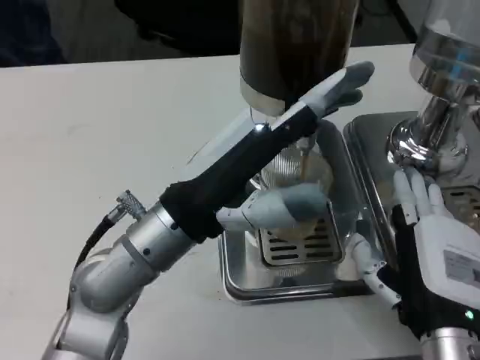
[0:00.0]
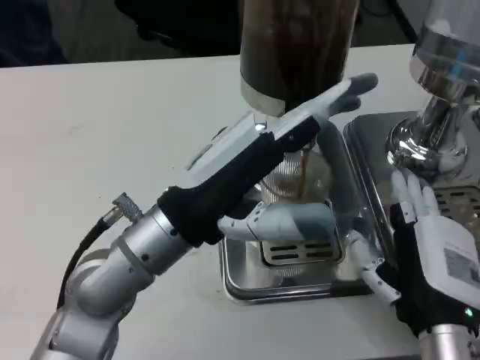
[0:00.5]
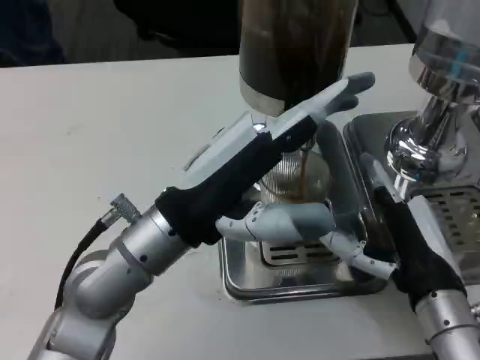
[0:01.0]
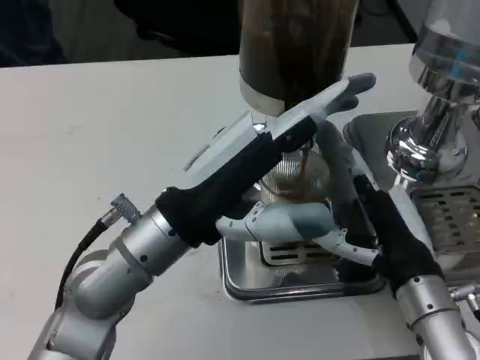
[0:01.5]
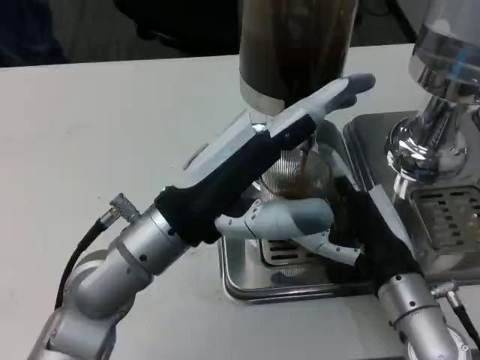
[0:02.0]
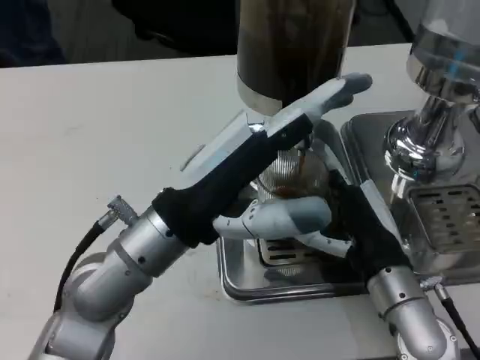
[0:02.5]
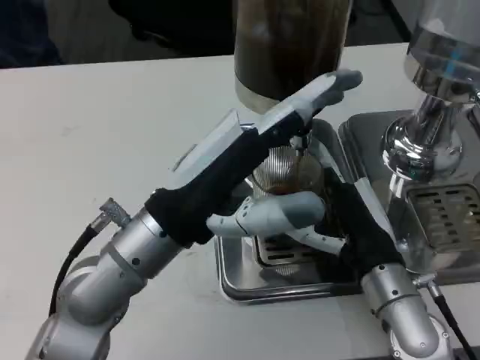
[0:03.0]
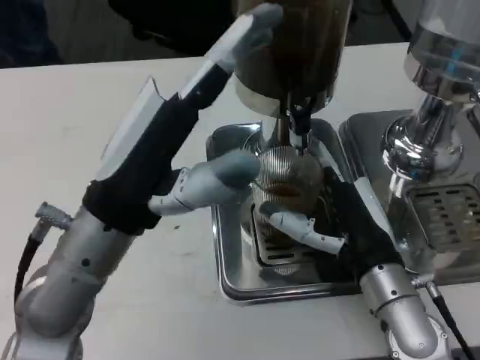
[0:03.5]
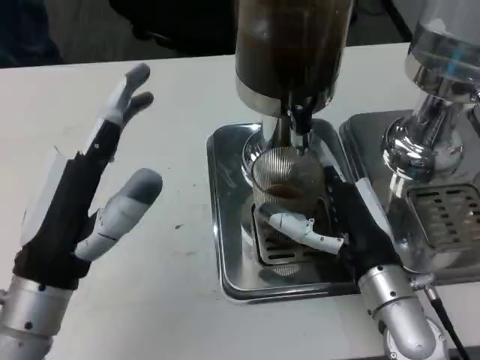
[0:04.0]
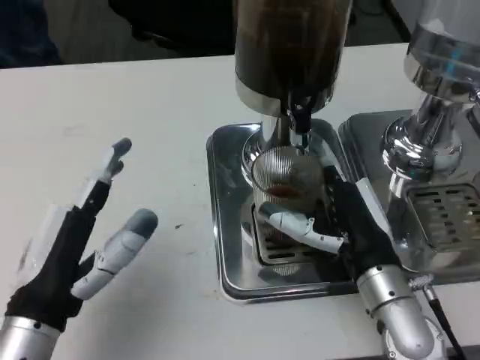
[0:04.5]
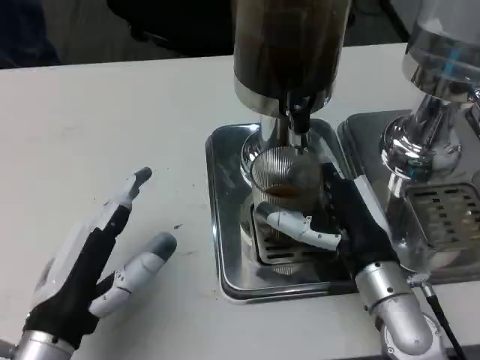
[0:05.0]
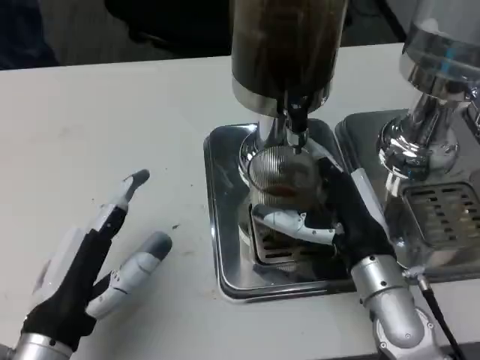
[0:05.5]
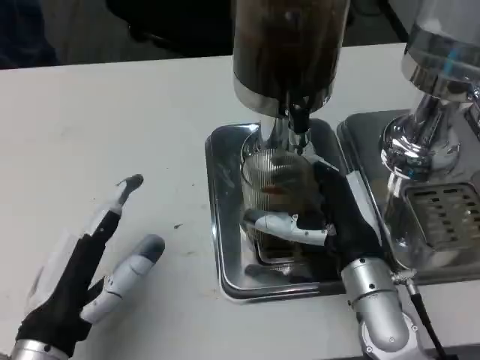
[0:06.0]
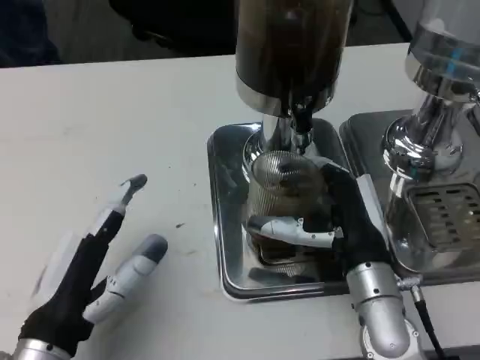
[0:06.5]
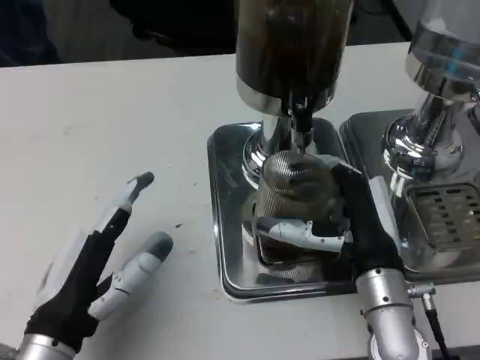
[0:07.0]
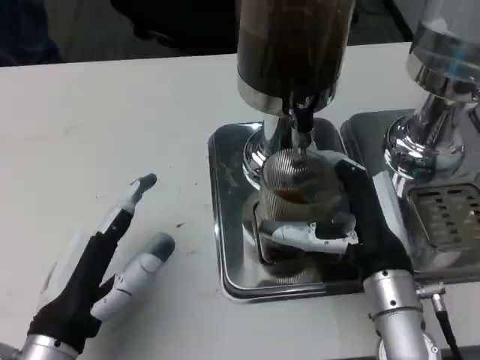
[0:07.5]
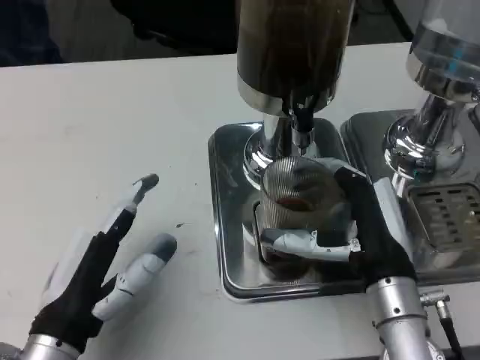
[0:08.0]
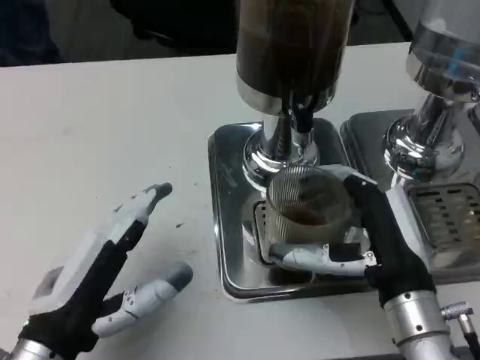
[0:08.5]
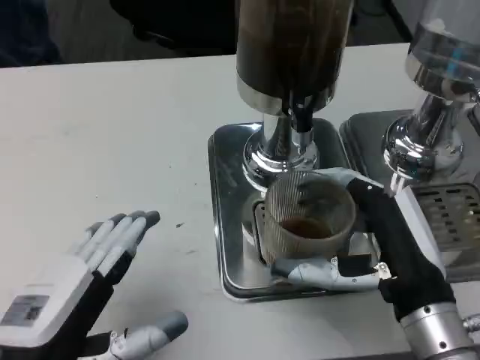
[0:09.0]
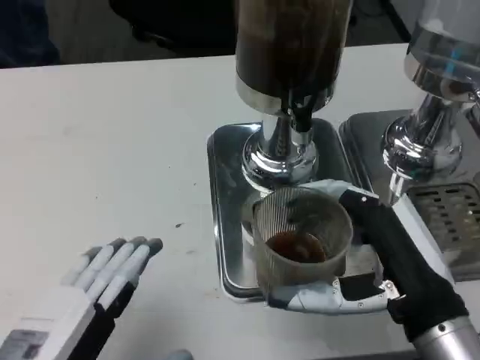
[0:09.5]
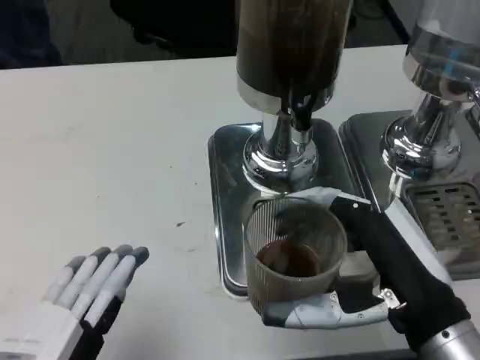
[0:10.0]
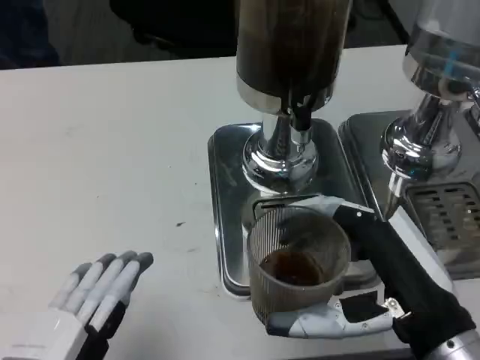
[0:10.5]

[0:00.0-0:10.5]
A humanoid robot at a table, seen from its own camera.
Task of the whole recording: Grasp the cup under the faucet to collect the drink, then remove the cup.
0:00.0 to 0:02.0: The right hand moves forward, about 5 cm.
0:02.0 to 0:04.0: The left hand moves to the left and backward, some 10 cm.
0:04.0 to 0:06.5: The left hand moves downward, roughly 5 cm.
0:06.5 to 0:08.5: The right hand ends up approximately 5 cm from where it was.
0:08.5 to 0:10.5: The right hand goes approximately 5 cm backward. Meanwhile the left hand shifts roughly 10 cm backward.

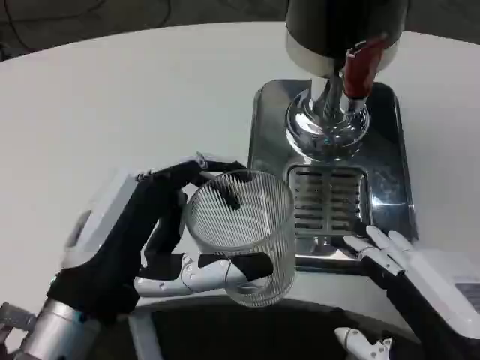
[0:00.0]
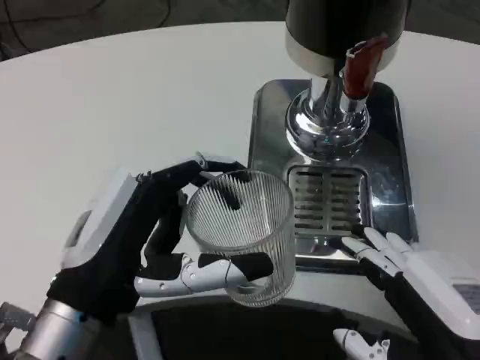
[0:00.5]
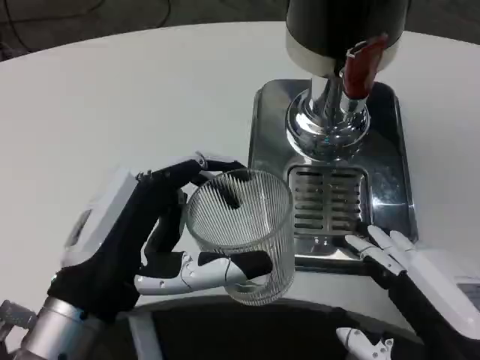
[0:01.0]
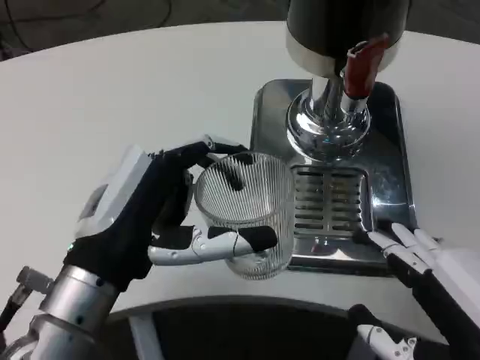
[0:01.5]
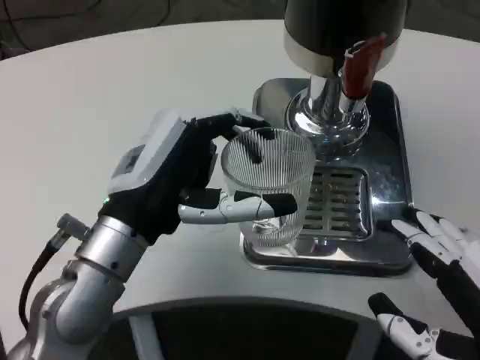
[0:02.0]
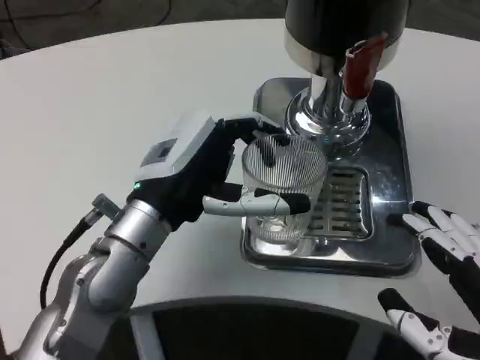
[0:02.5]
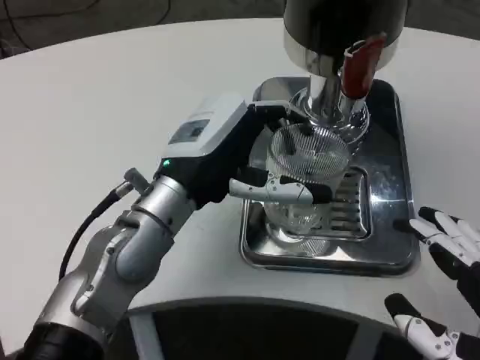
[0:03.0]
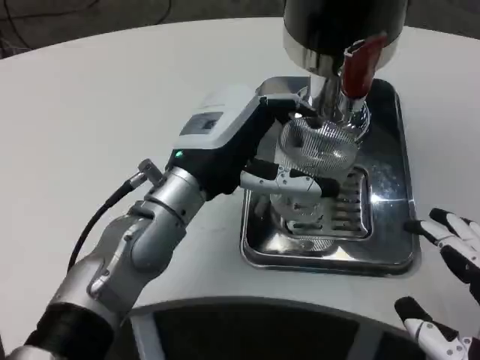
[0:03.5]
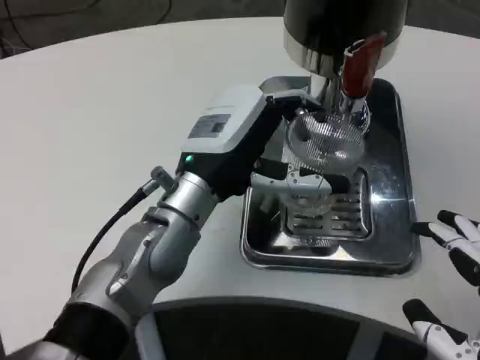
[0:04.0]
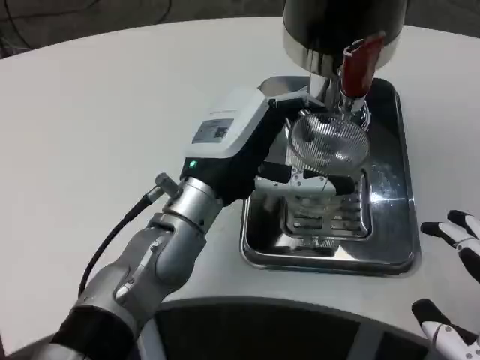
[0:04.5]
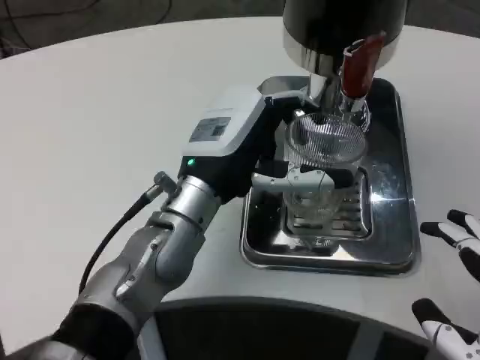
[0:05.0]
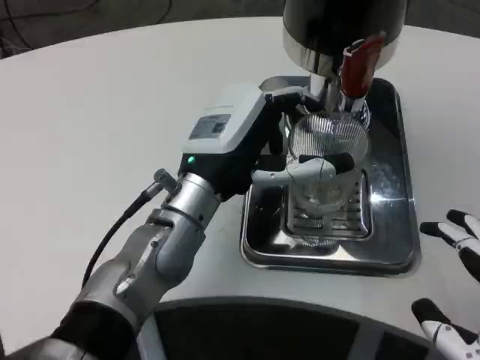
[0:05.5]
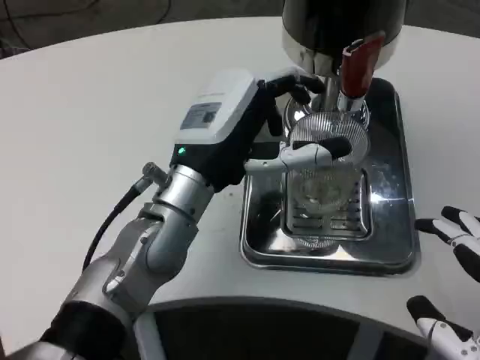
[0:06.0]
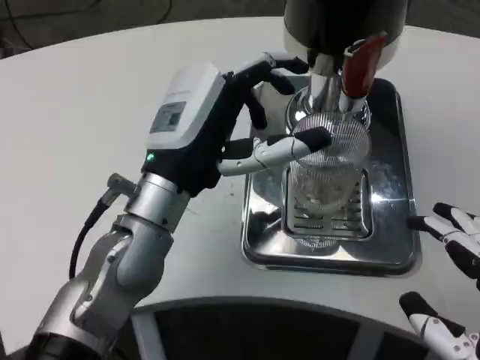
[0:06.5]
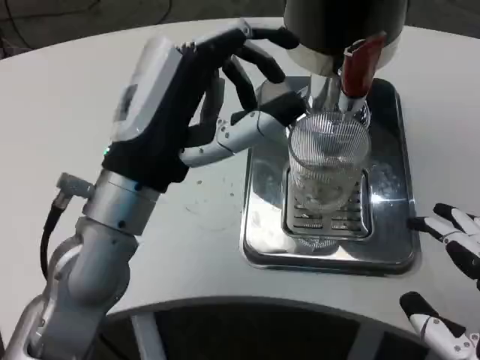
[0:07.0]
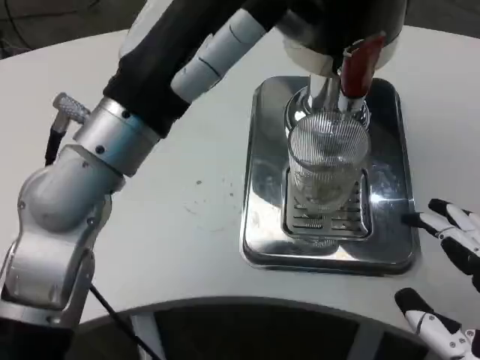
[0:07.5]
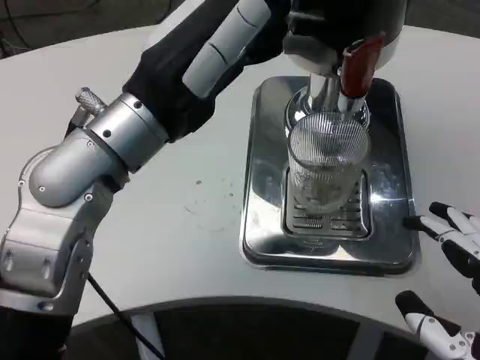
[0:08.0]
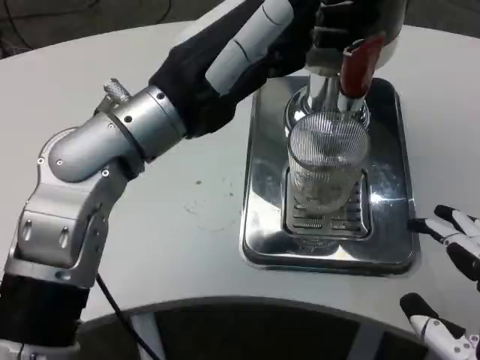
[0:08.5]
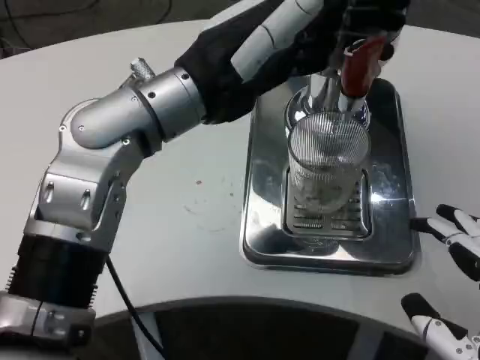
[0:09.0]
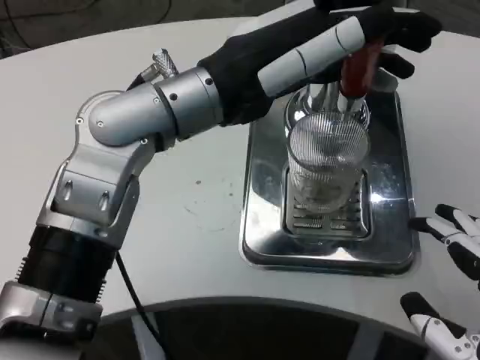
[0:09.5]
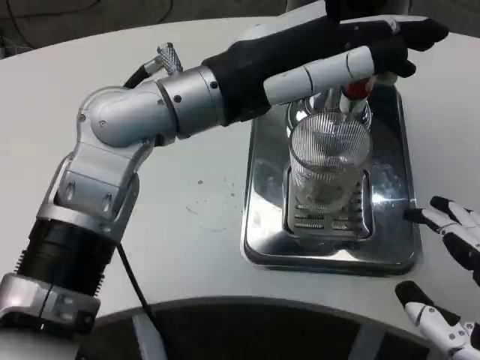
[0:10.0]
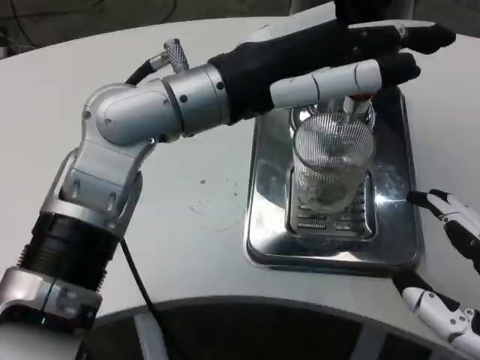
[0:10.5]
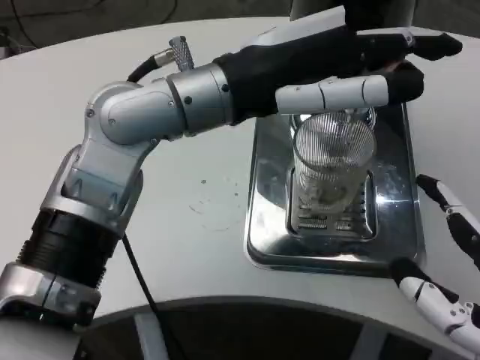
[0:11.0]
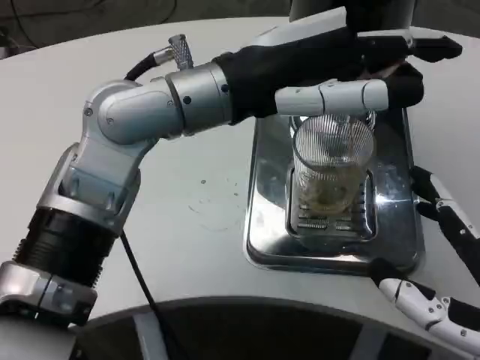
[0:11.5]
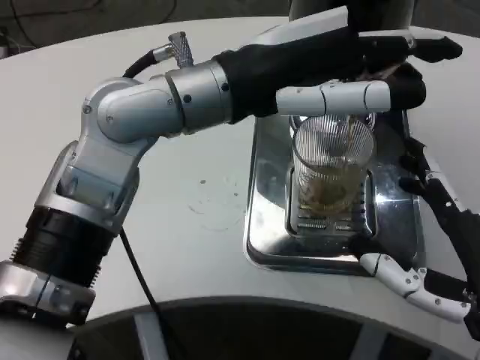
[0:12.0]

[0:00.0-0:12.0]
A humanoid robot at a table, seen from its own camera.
Task of the whole recording: Grasp the cup under the faucet to collect the drink, then remove the cup.
0:00.0 to 0:02.0: The left hand moves forward, approximately 10 cm.
0:02.0 to 0:04.0: The left hand shifts approximately 10 cm forward and to the right.
0:04.0 to 0:06.0: The hands stay close to where they were, moving slightly.
0:06.0 to 0:08.0: The left hand travels upward by roughly 10 cm.
0:08.0 to 0:10.0: The left hand changes place by roughly 5 cm.
0:10.0 to 0:12.0: The right hand goes about 5 cm forward.

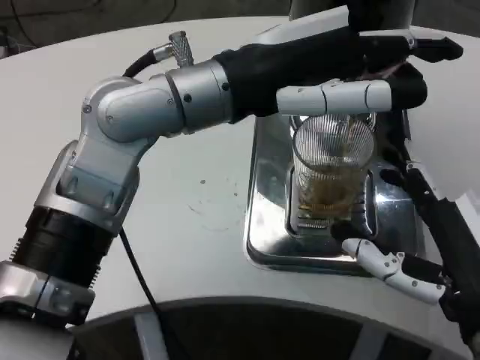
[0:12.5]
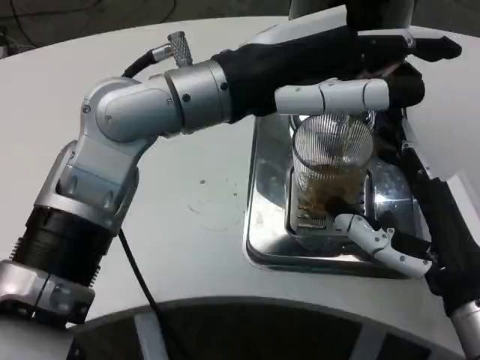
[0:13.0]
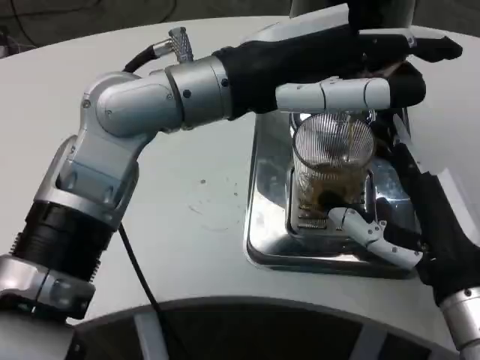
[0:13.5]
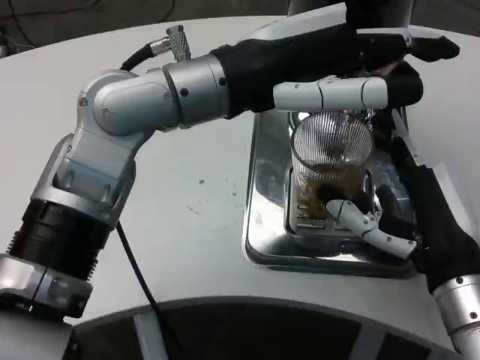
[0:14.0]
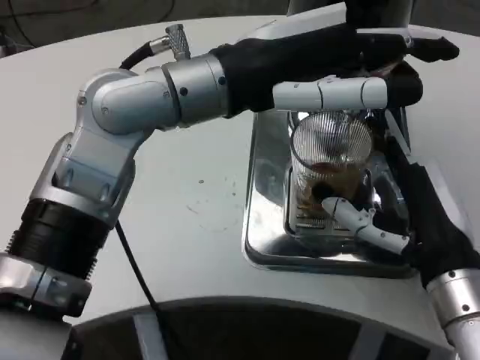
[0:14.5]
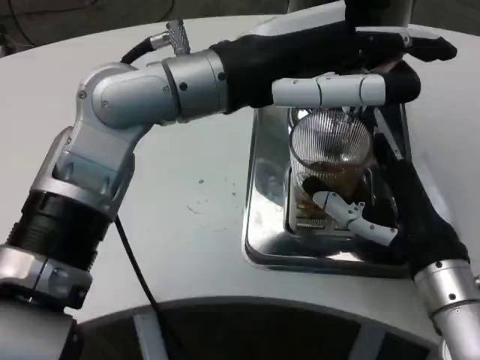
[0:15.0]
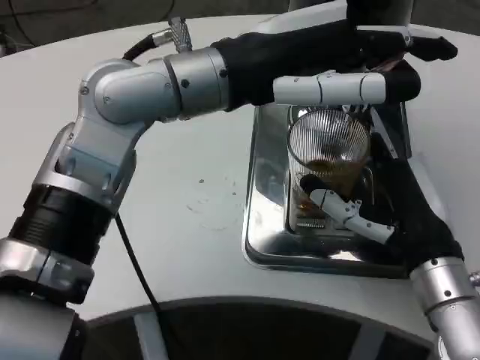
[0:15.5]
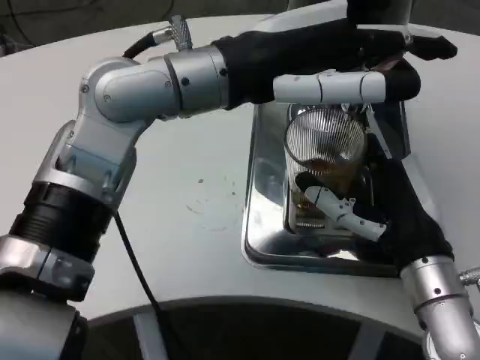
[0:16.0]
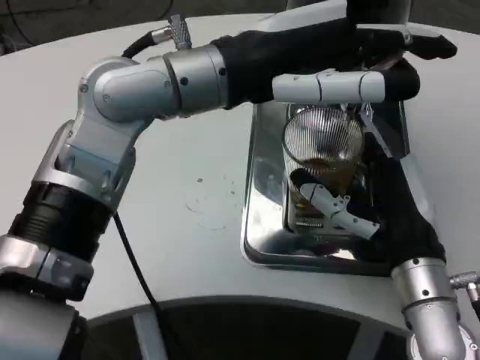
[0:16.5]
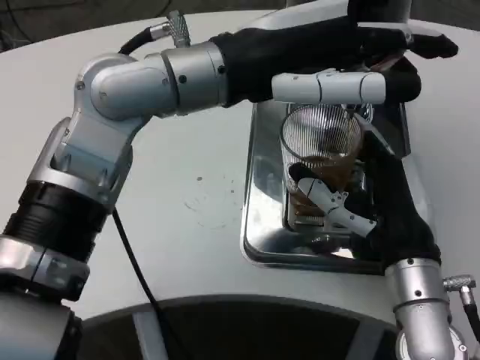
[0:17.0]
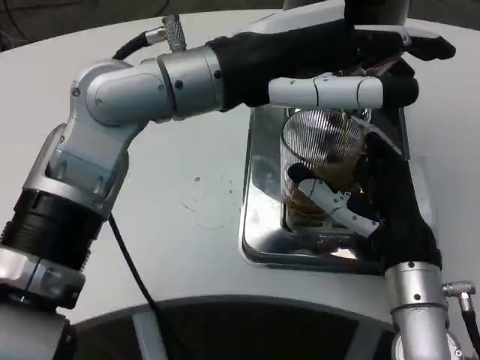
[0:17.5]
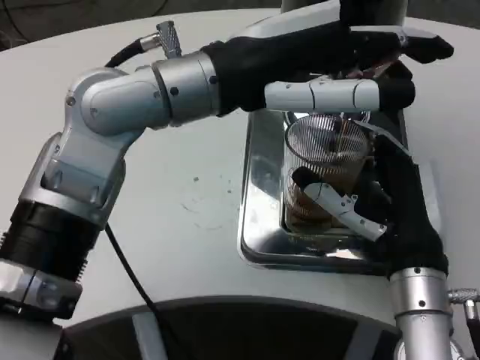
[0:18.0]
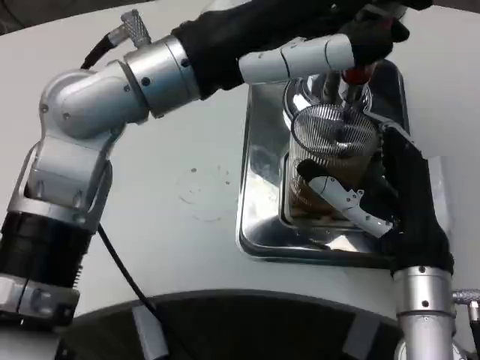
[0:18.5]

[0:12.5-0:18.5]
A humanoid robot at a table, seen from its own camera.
Task of the whole recording: Grasp the cup under the faucet to collect the drink, then remove the cup.
0:12.5 to 0:14.5: The right hand goes roughly 5 cm forward.
